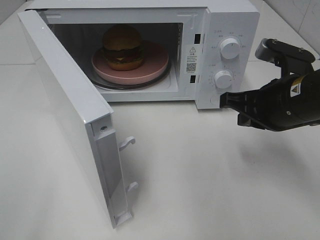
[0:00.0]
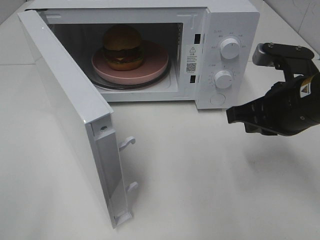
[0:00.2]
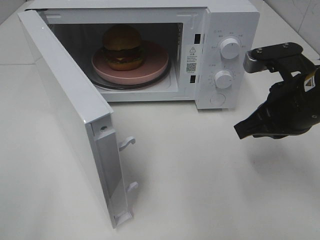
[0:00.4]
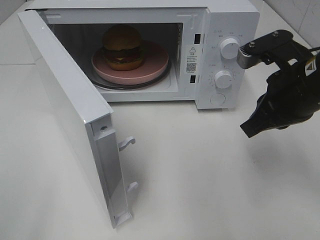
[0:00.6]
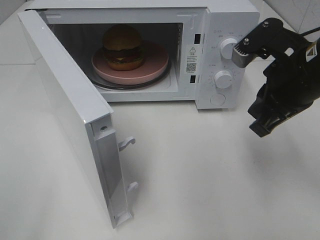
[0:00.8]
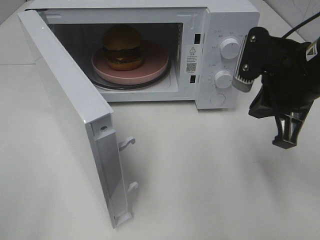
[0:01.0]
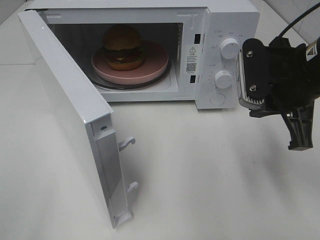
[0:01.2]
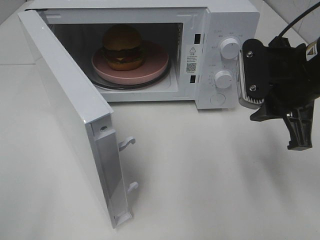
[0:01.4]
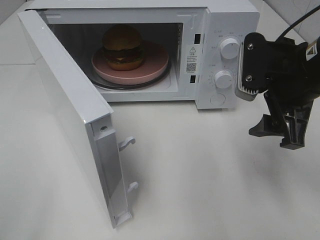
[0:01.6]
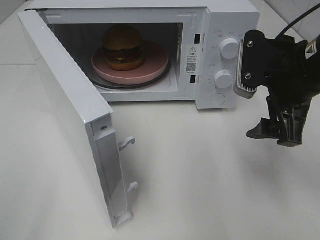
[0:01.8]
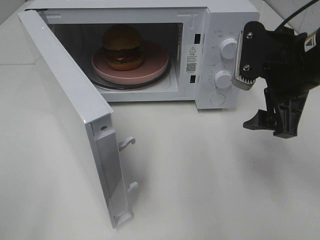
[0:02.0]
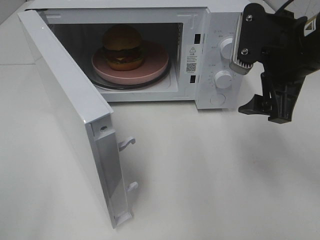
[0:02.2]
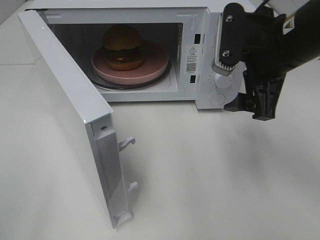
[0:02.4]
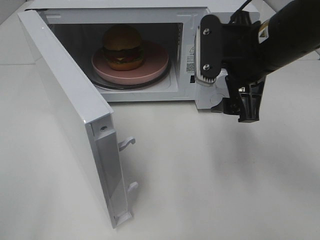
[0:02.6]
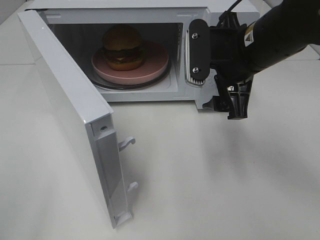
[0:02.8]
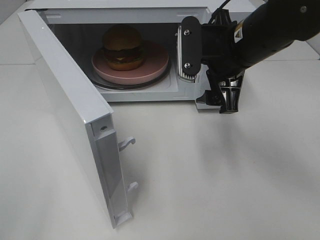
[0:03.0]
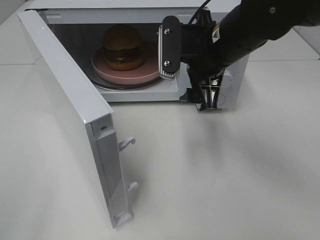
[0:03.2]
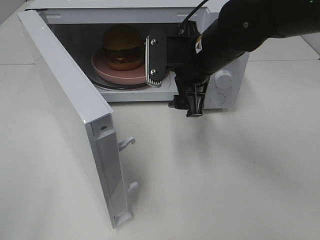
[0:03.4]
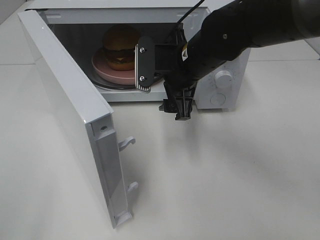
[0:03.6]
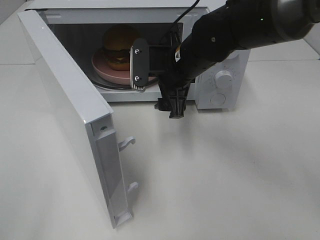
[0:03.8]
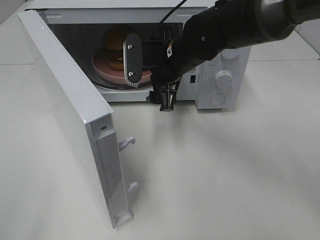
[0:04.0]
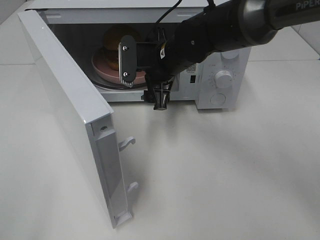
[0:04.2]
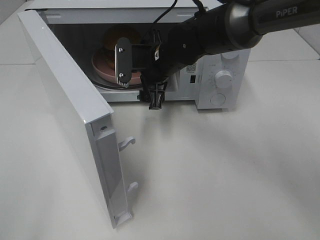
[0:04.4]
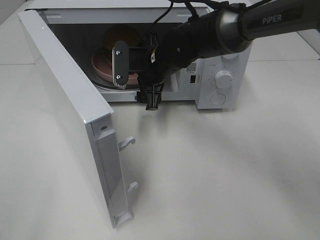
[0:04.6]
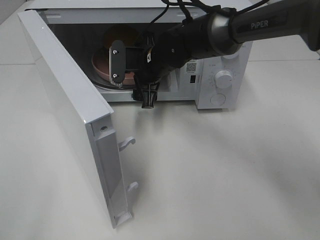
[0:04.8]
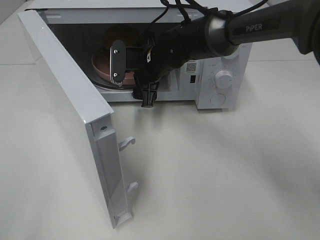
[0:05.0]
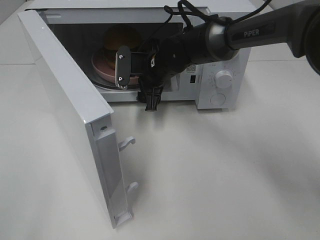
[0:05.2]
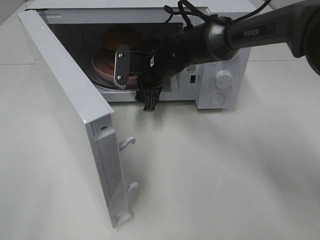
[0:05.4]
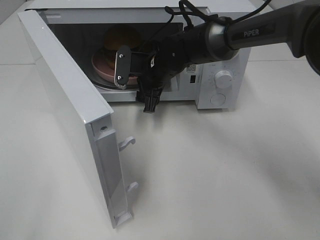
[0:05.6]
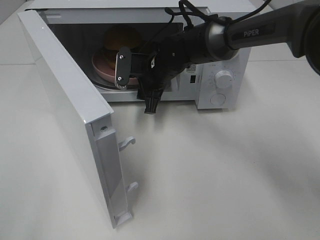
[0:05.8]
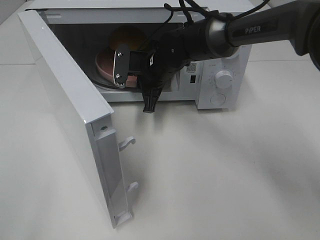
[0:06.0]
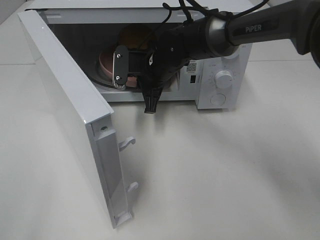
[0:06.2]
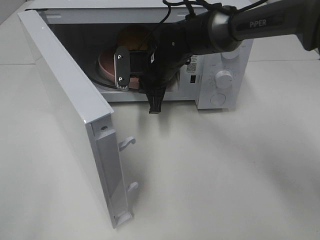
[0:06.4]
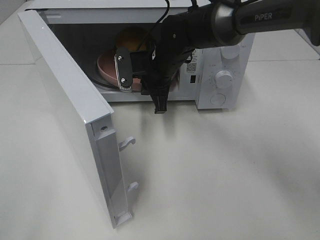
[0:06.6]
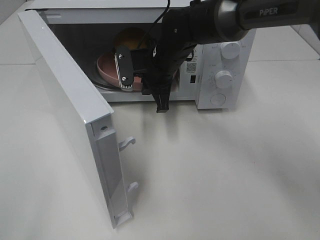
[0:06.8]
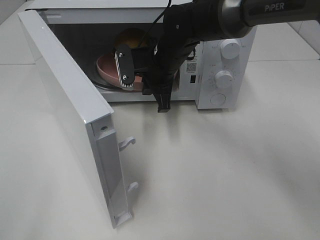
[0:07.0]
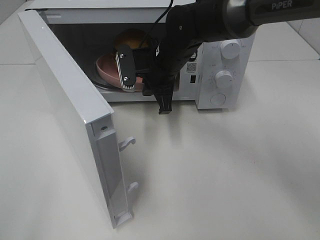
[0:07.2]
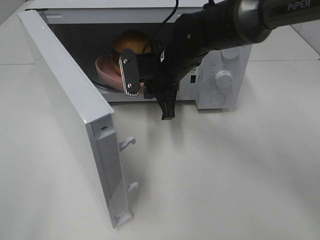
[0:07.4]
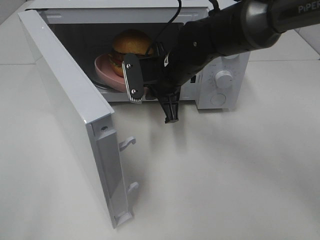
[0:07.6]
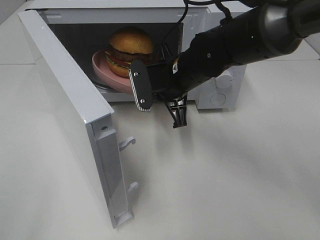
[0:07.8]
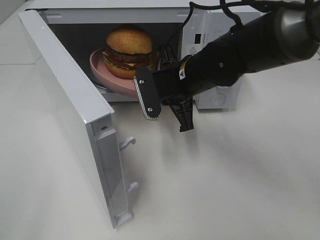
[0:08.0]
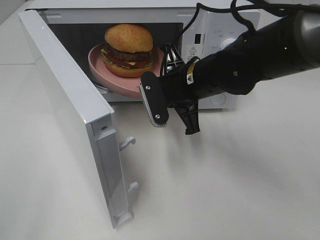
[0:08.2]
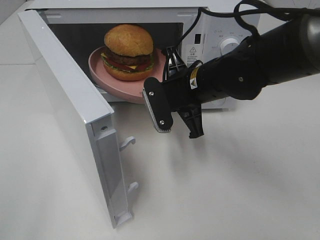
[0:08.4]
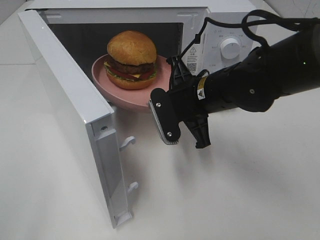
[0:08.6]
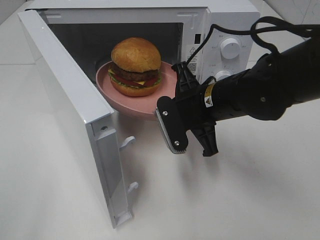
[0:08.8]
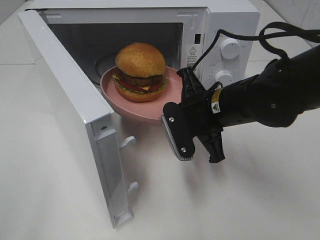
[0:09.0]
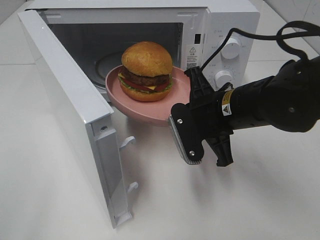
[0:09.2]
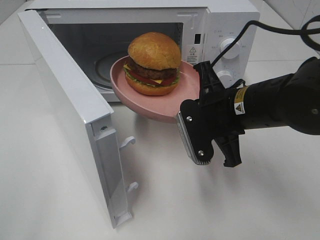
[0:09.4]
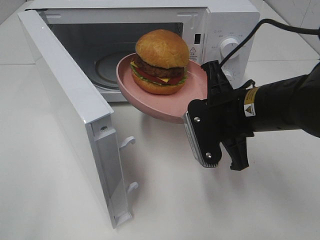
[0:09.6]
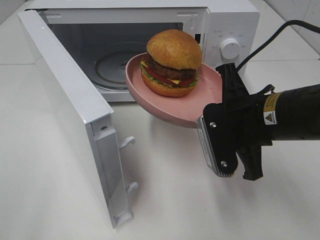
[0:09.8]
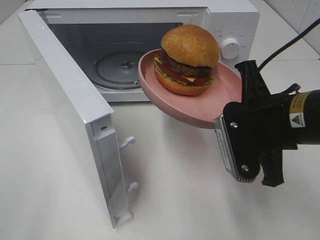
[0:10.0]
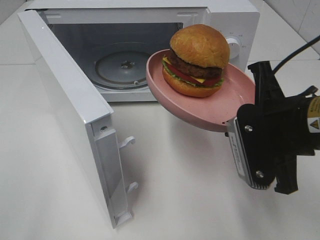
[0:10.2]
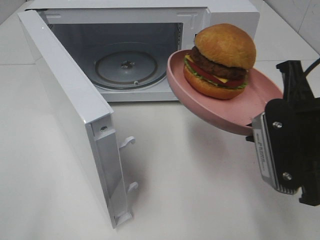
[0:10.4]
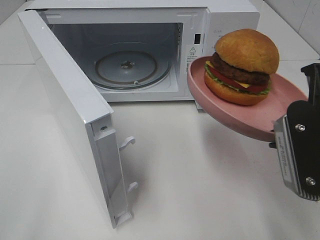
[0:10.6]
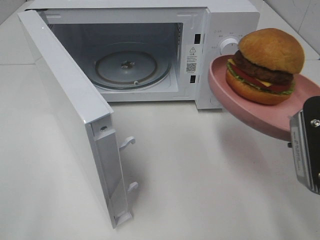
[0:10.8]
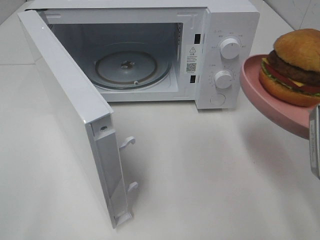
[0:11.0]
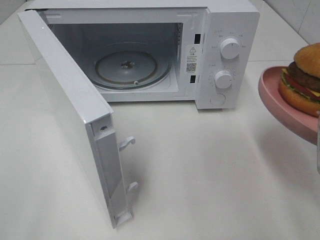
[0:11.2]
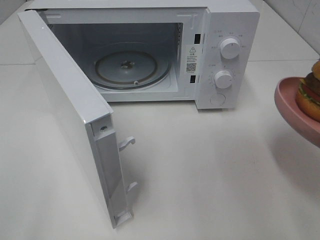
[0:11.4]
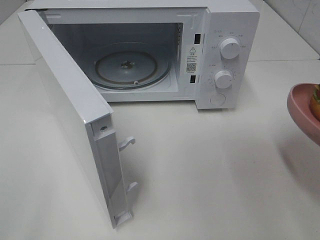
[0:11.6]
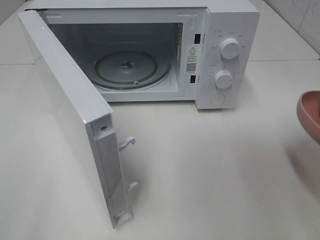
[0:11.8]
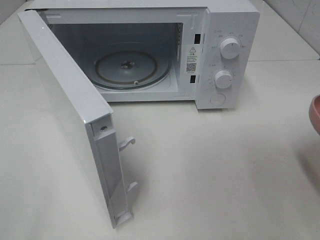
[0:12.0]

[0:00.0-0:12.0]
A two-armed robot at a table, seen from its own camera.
Task of the whole recording: Heat the burger.
Step, 0:00.0 to 0:06.0: Right hand: grab the plate with the hamburger.
0:00.0 to 0:01.6: The right gripper opens up.
0:01.6 to 0:03.0: The right gripper travels to the left and forward by about 10 cm.
0:03.0 to 0:04.4: The right gripper moves to the left, forward and downward, roughly 15 cm.
0:04.4 to 0:06.0: The right gripper closes.
0:06.0 to 0:07.6: The right gripper heads backward, covering roughly 5 cm.
0:07.6 to 0:09.0: The right gripper heads backward and to the right, covering roughly 10 cm.
0:09.0 to 0:10.4: The right gripper travels backward, to the right and upward by about 15 cm.
0:10.4 to 0:12.0: The right gripper travels to the right by some 5 cm.

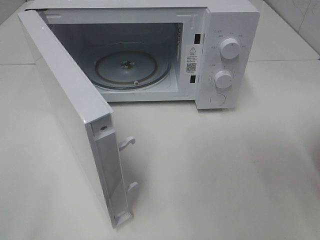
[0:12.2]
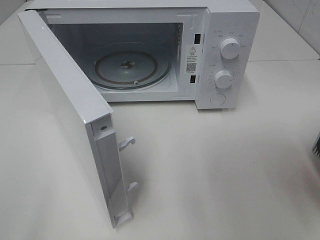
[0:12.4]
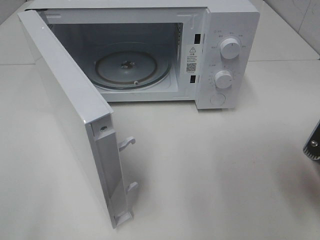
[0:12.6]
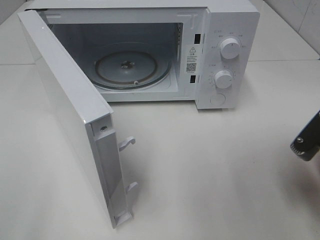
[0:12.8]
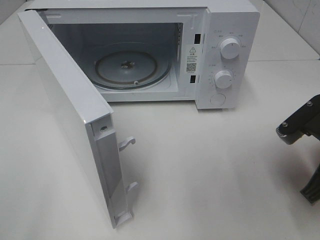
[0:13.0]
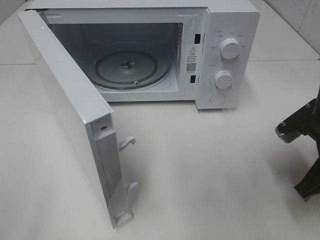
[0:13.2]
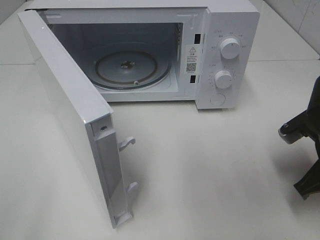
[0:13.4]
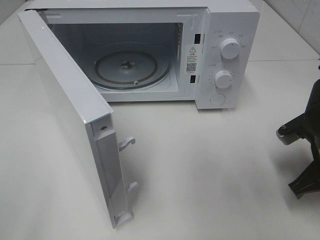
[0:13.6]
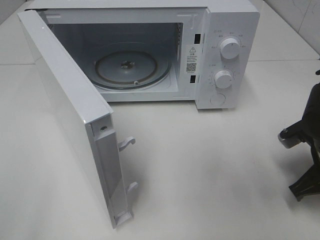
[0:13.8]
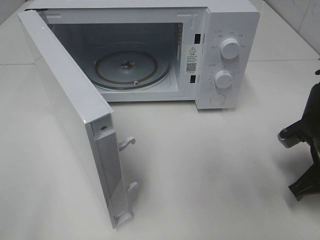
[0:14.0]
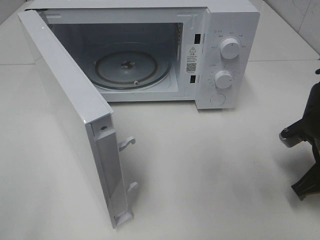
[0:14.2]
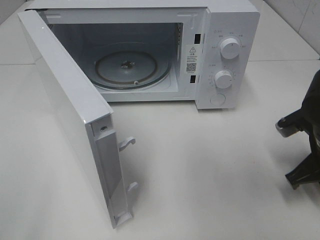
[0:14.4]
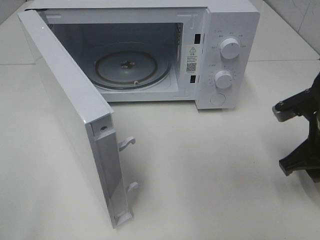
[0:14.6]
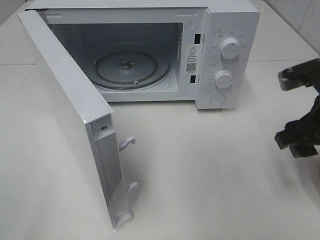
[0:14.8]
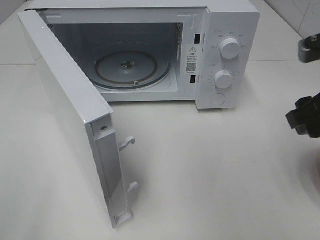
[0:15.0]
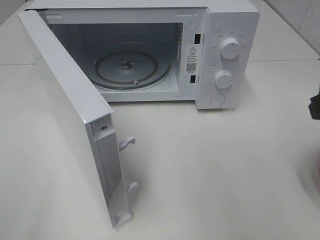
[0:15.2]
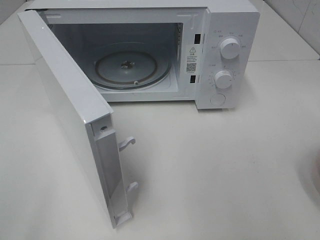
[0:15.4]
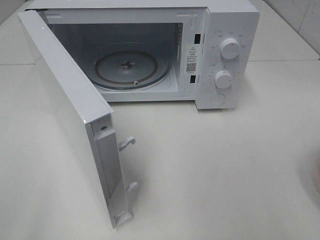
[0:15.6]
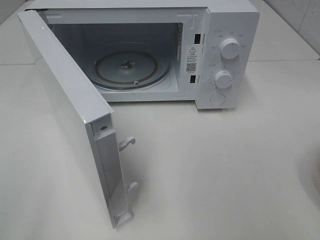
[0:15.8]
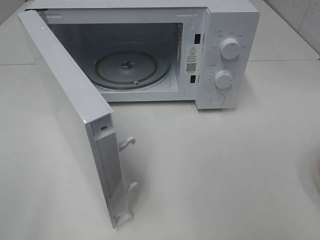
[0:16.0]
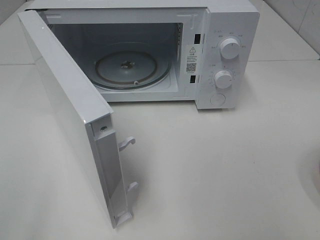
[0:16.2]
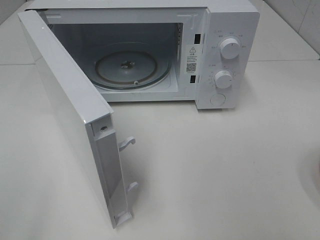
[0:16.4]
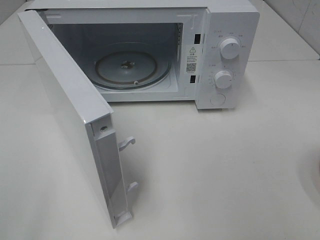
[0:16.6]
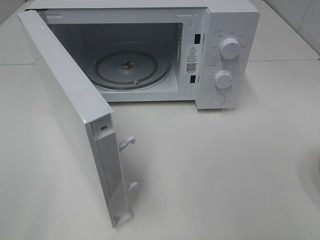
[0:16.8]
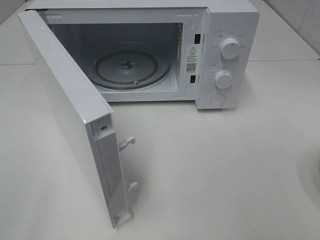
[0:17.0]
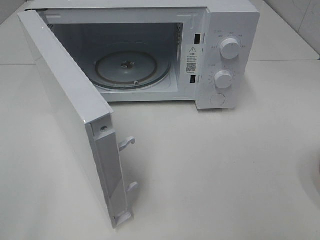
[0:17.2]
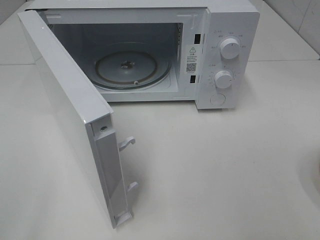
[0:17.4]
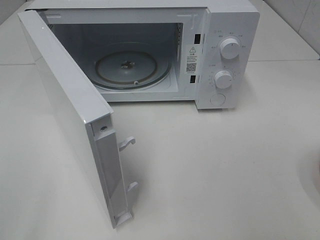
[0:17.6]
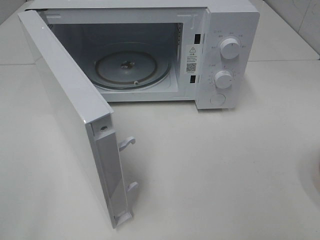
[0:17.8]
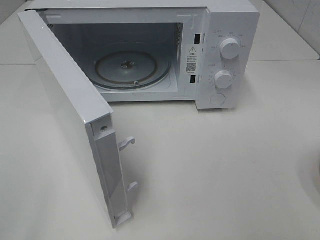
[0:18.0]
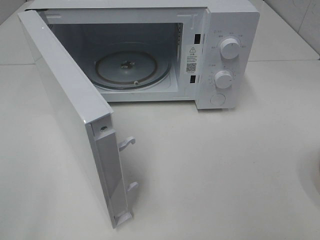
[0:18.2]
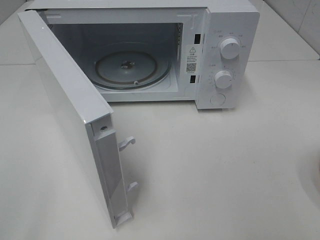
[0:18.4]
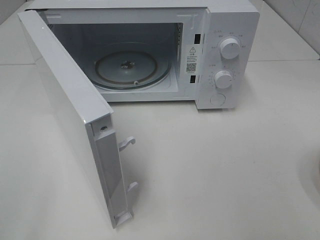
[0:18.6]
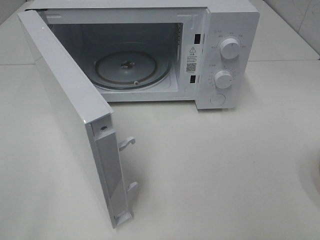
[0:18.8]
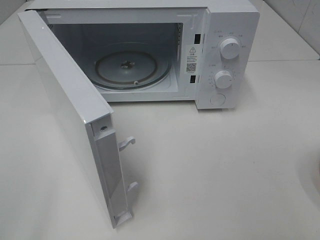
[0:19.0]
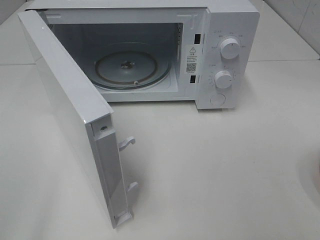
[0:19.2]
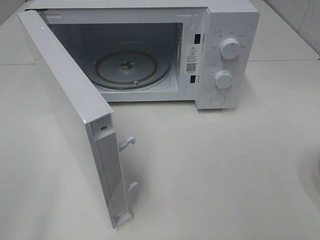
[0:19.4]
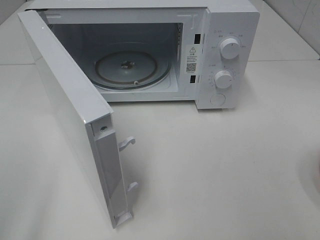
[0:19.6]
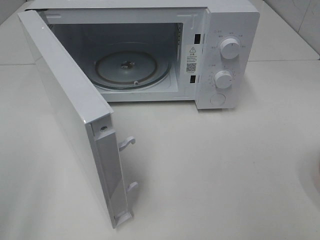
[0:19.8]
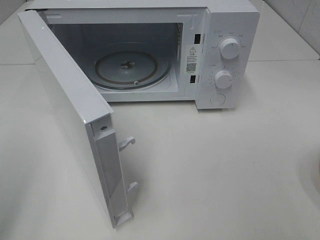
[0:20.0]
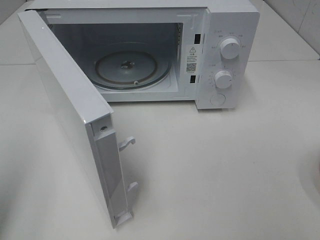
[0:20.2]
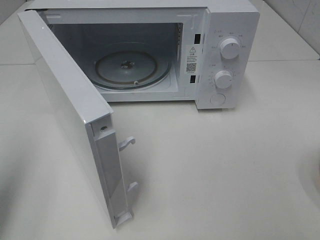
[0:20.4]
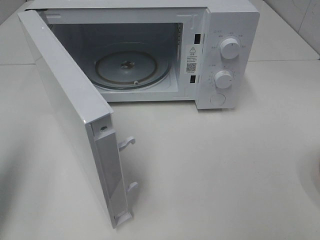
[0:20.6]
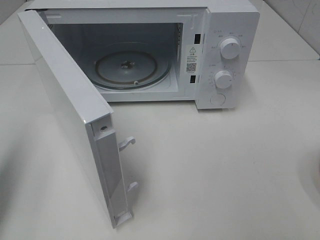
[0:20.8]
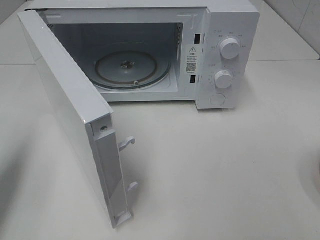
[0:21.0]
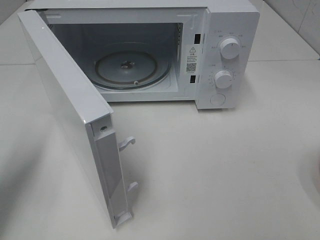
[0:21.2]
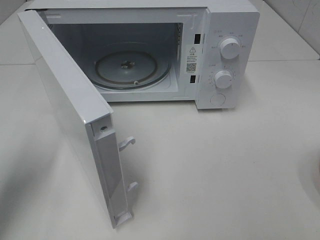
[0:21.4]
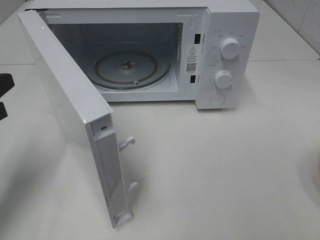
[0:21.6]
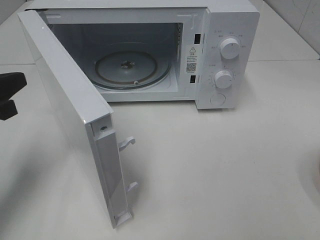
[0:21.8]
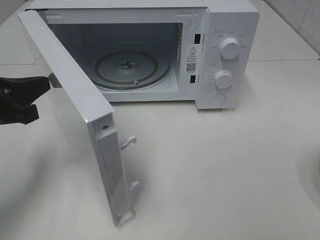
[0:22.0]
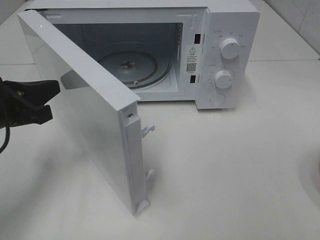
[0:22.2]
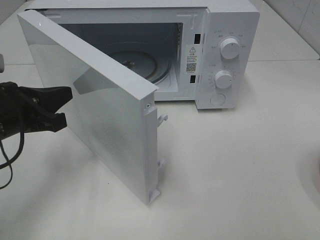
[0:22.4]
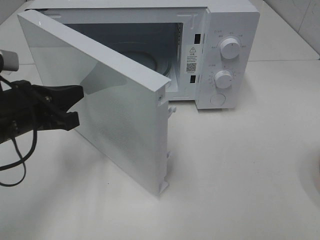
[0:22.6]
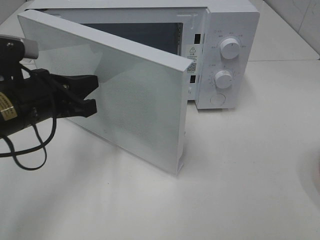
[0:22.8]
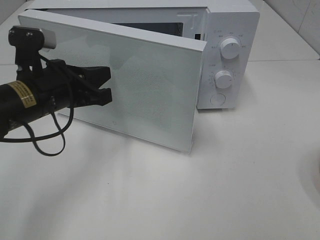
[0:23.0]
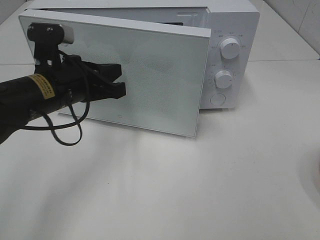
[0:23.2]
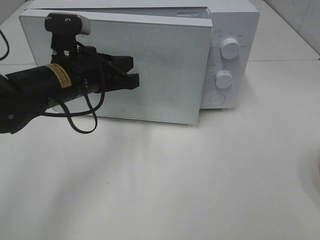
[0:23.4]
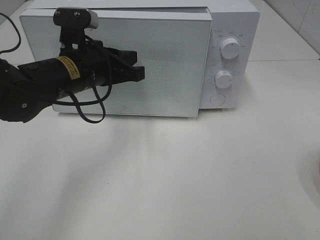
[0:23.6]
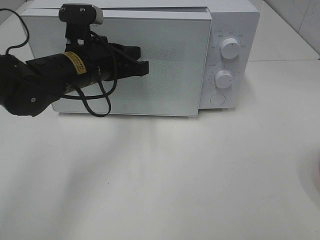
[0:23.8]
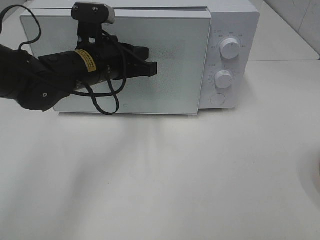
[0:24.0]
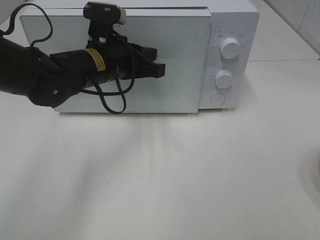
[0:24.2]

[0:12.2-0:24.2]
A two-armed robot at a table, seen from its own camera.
Task of the whole recording: Heat the burger.
Step, 0:12.2 to 0:14.2: Right hand: place the plate on the table.
0:12.2 to 0:13.8: The right gripper travels downward and forward by approximately 15 cm.
0:13.8 to 0:15.2: The right gripper goes some 15 cm upward, and opens up.
0:15.2 to 0:16.6: The right gripper travels backward by about 15 cm.
0:19.8 to 0:21.2: The left gripper moves forward and downward, some 15 cm, and closes.
0:21.2 to 0:22.6: The left gripper travels to the right and downward by approximately 10 cm.
0:22.6 to 0:24.2: The left gripper goes some 15 cm to the right and forward.
